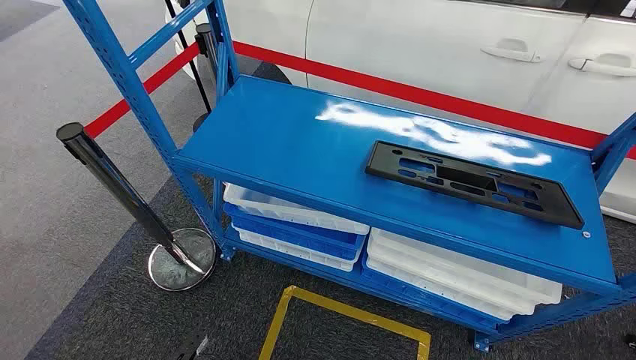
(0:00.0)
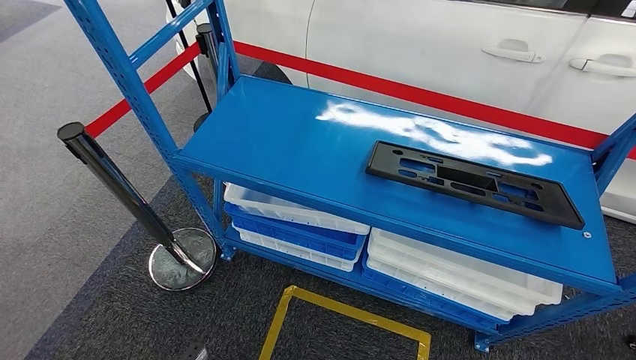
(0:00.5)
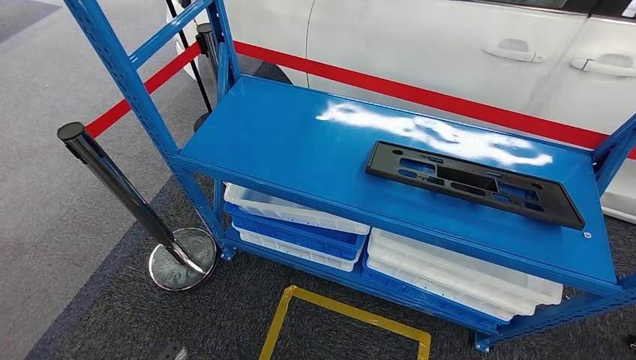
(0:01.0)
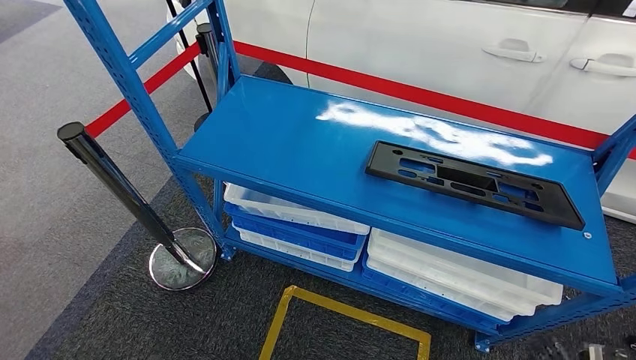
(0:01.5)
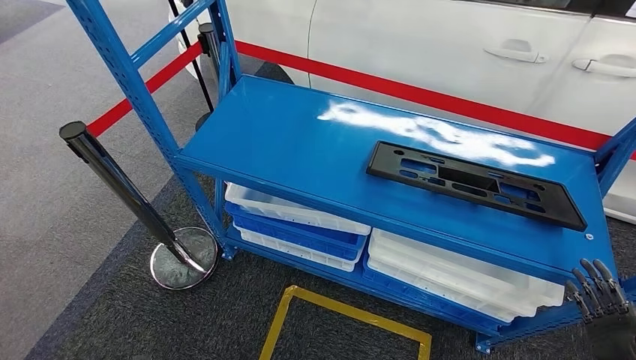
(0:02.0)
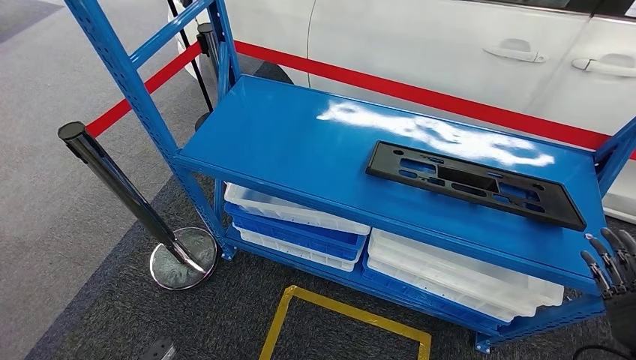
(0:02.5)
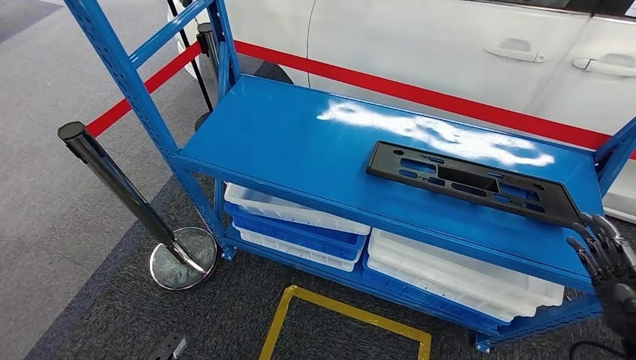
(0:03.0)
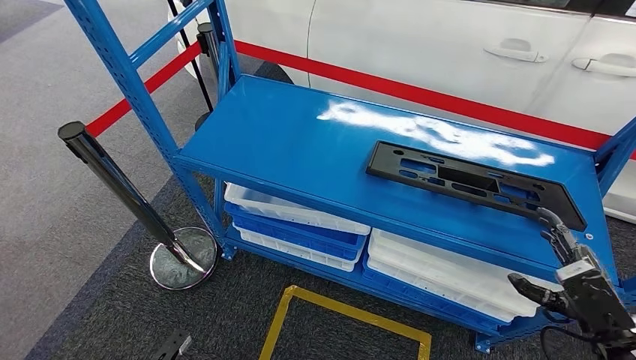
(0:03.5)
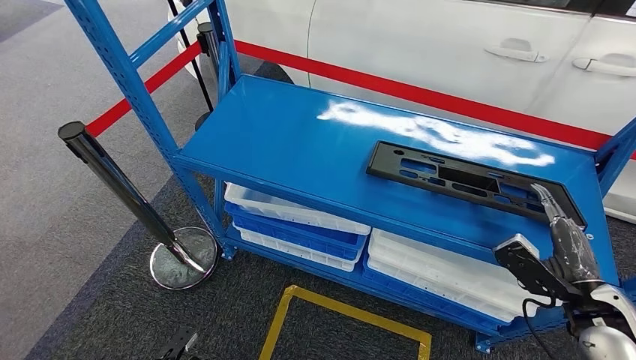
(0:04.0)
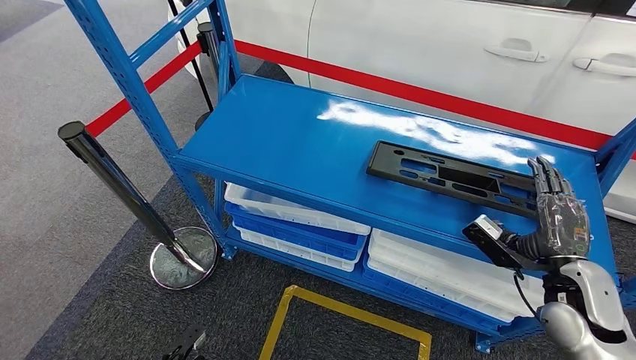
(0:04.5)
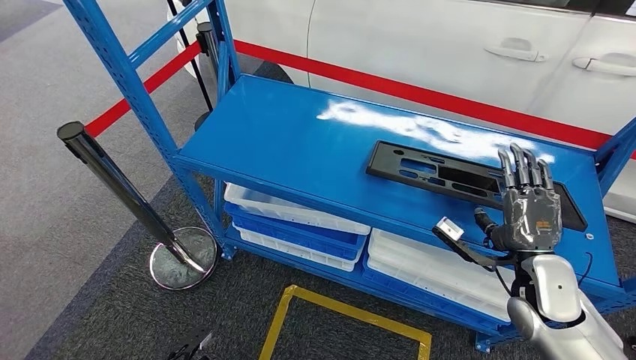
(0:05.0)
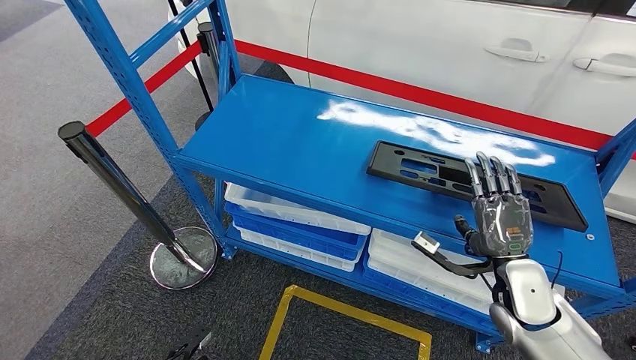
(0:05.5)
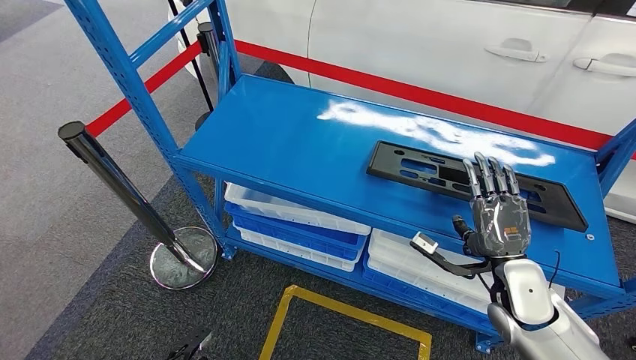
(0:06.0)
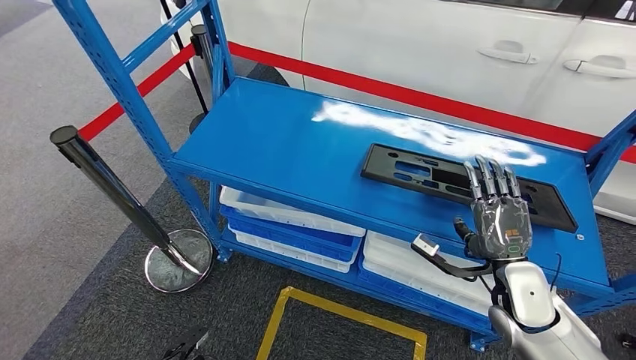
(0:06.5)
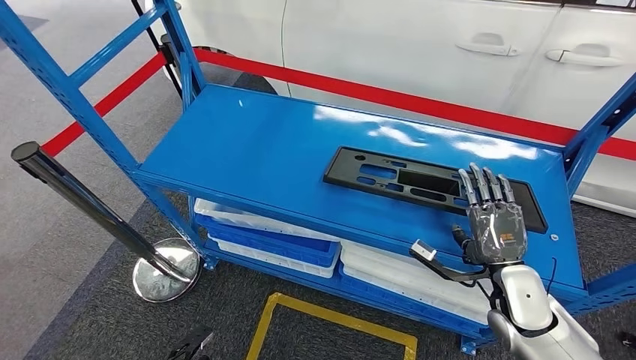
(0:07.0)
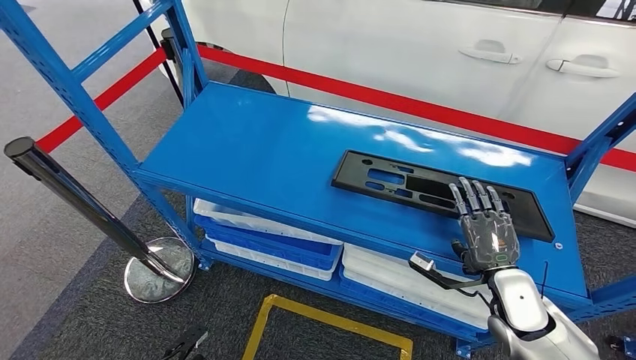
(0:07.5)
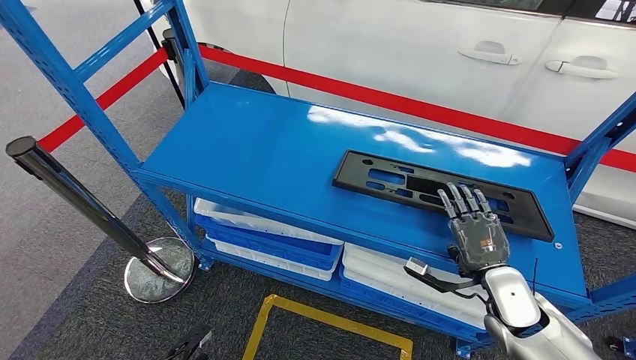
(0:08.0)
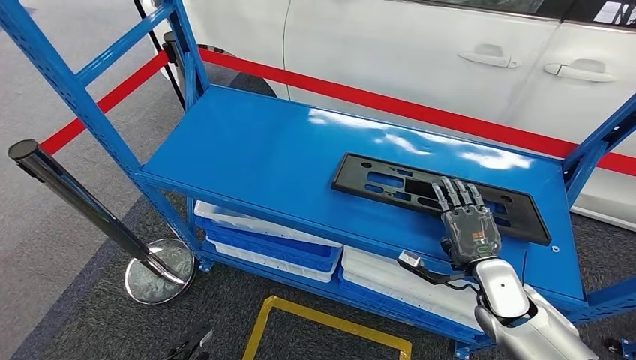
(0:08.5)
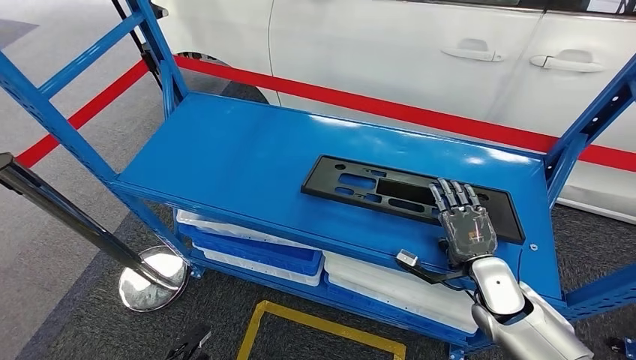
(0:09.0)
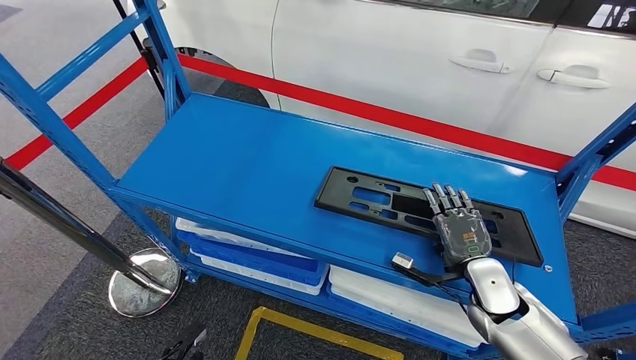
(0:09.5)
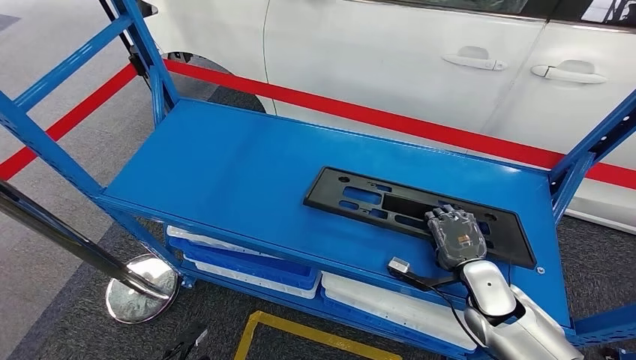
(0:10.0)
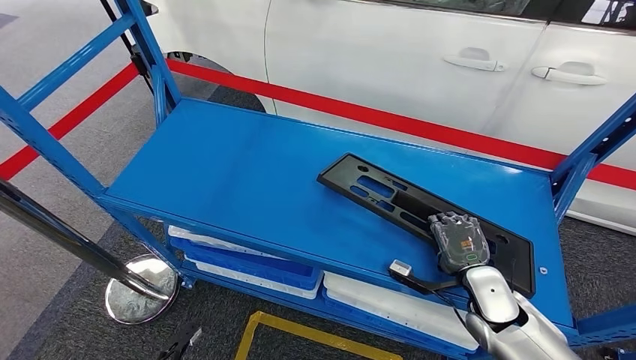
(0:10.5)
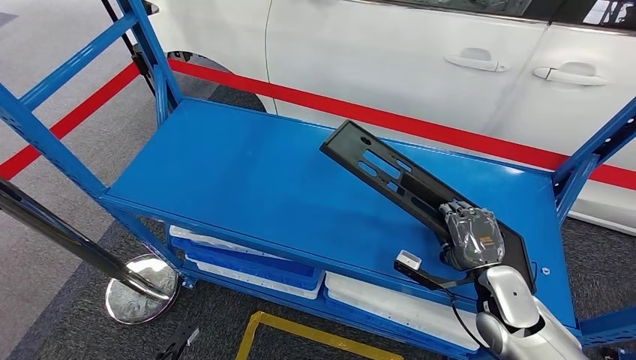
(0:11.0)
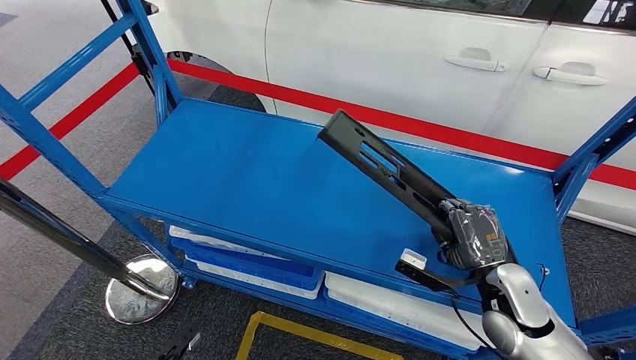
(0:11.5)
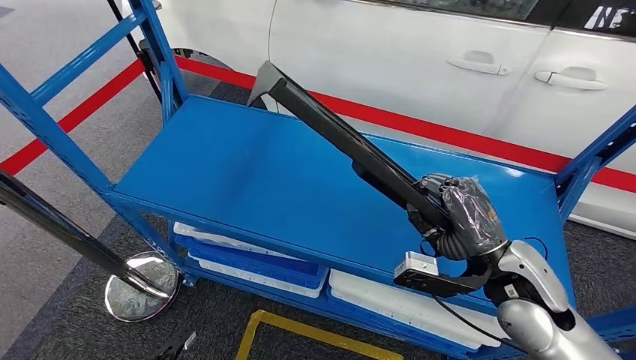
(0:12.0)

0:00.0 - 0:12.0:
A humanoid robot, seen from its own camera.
0:02.0 - 0:04.0: The left hand goes roughly 10 cm downward and forward. The right hand heads upward, forward and to the left, covering about 20 cm.
0:04.0 - 0:06.0: The right hand moves to the left and forward, some 15 cm.

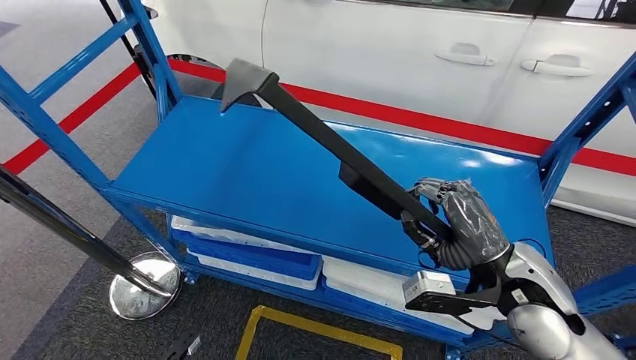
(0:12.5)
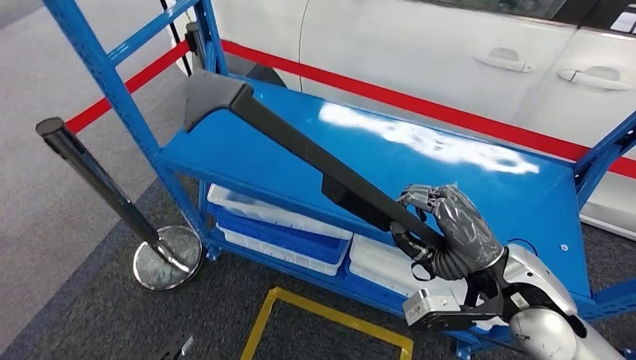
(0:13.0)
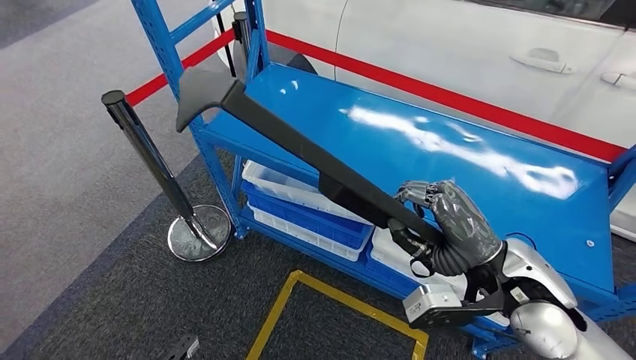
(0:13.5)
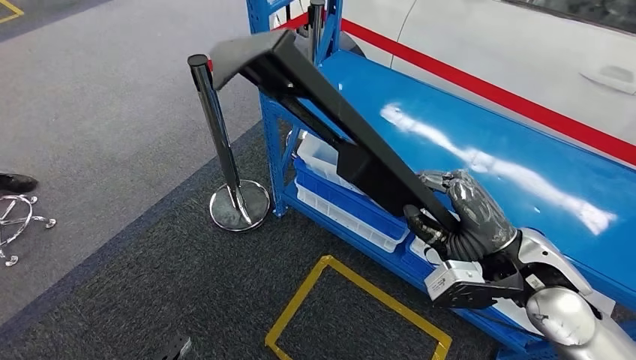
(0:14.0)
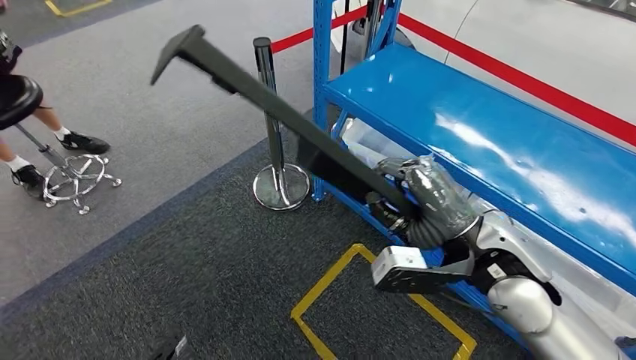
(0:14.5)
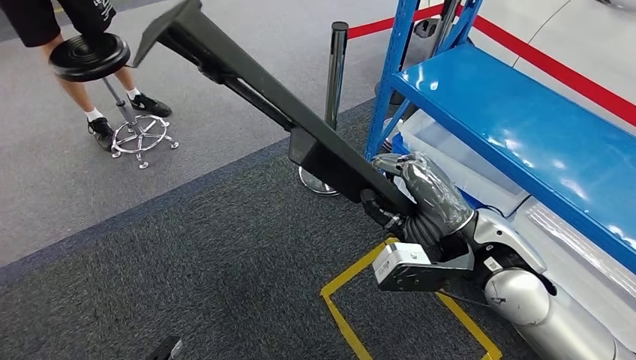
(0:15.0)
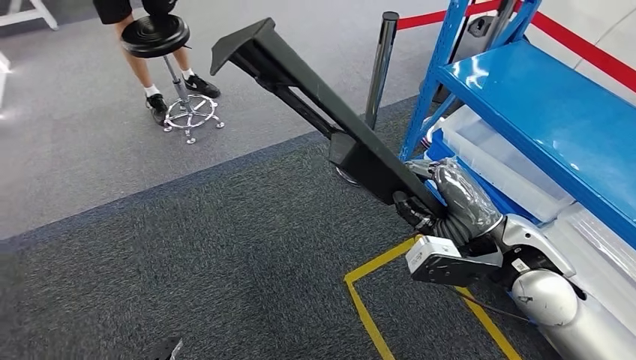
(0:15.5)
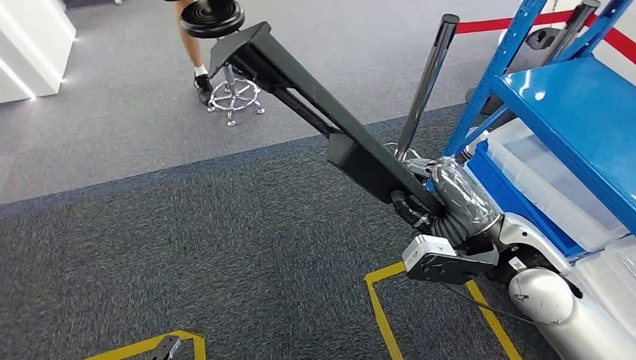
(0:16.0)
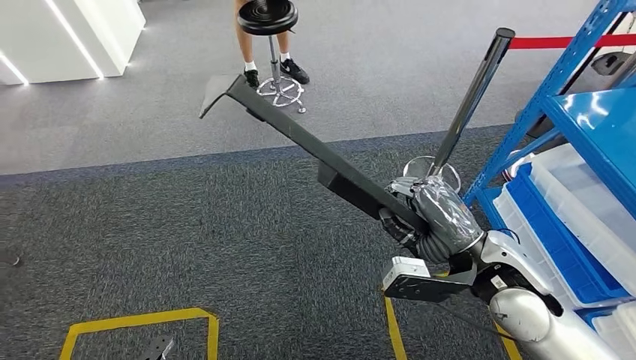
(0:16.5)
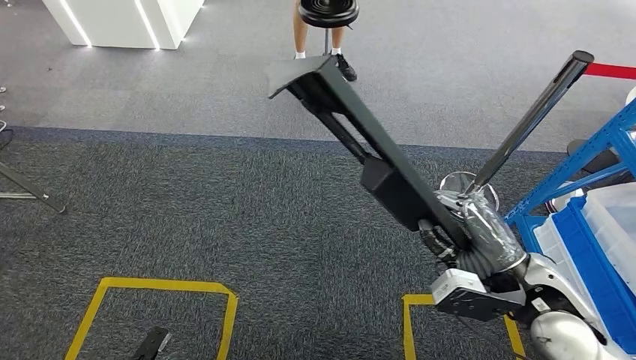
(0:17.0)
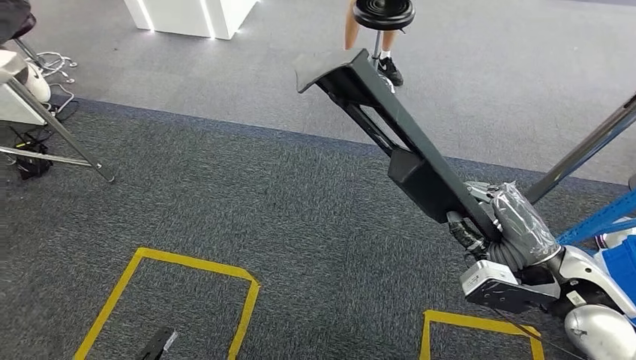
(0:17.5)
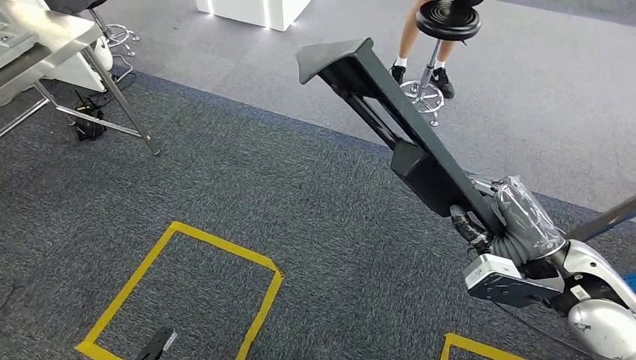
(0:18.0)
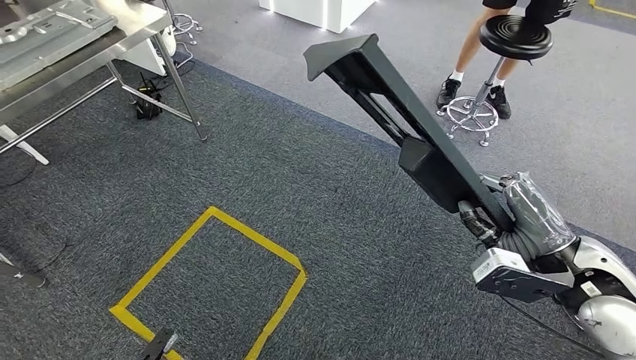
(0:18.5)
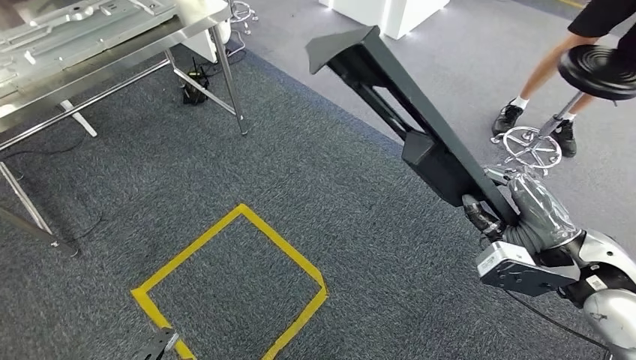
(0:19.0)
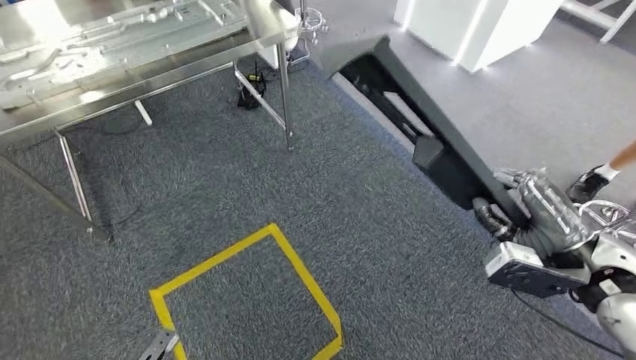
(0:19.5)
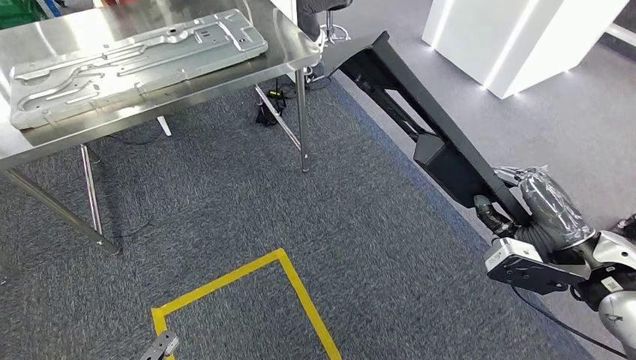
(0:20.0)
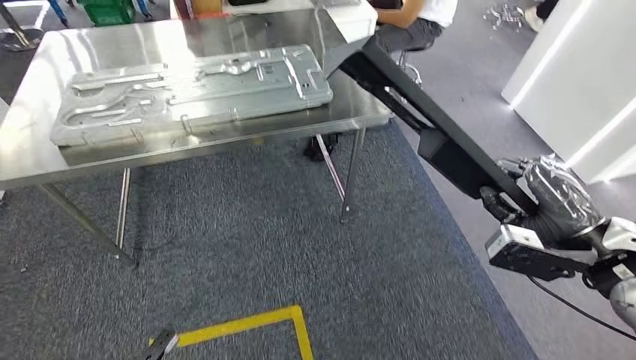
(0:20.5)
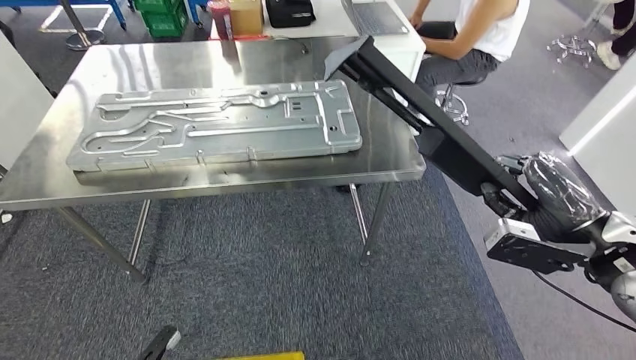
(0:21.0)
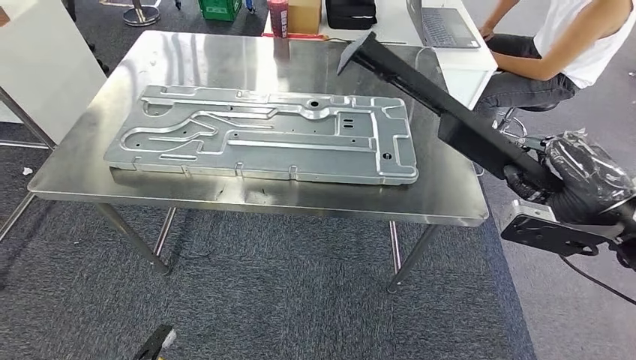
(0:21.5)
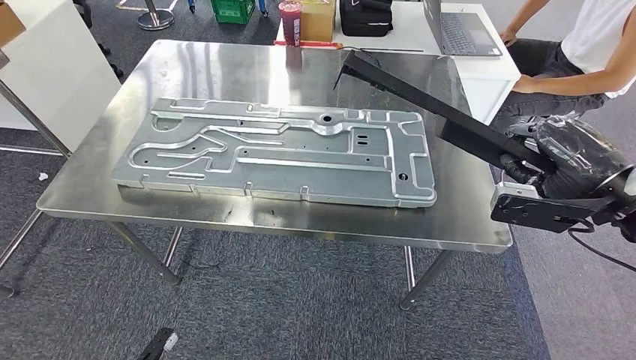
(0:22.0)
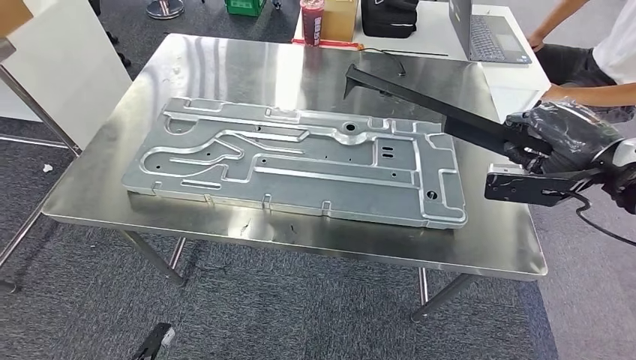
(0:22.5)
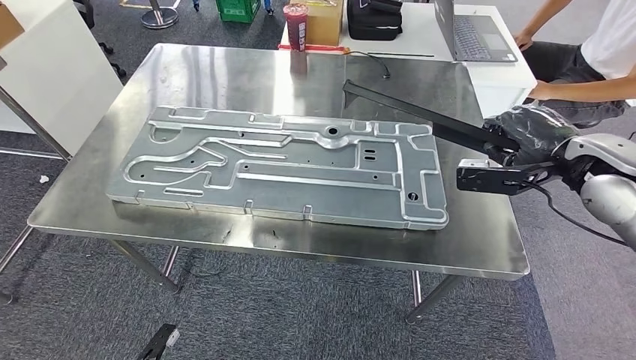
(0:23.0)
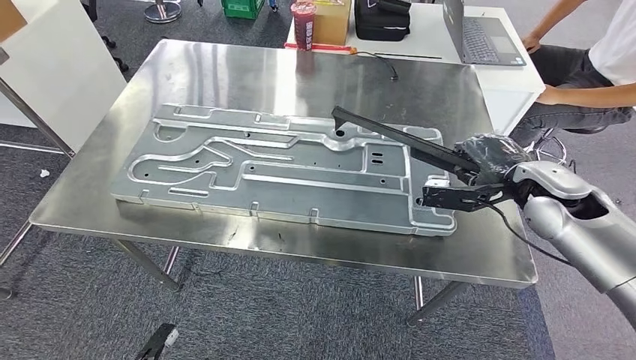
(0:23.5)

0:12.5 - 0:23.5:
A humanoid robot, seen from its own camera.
Step, 0:14.0 - 0:23.5: Move the large material to the workbench.
